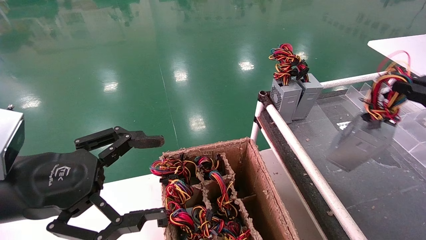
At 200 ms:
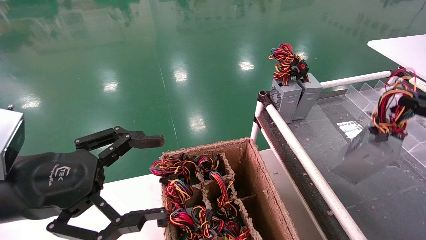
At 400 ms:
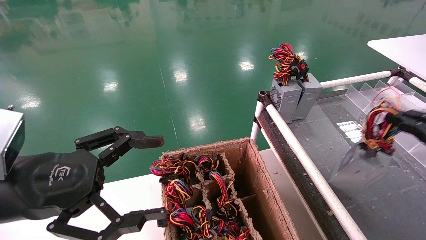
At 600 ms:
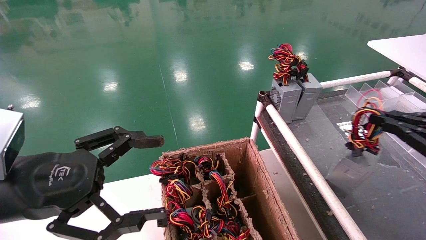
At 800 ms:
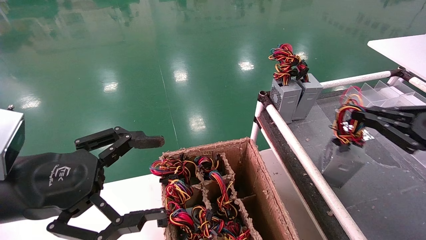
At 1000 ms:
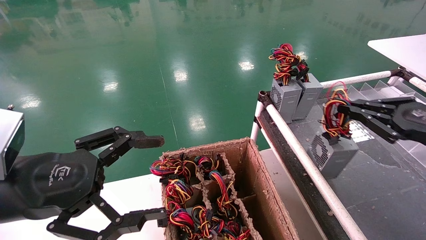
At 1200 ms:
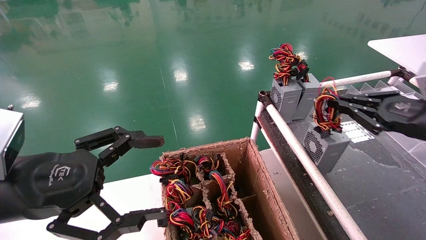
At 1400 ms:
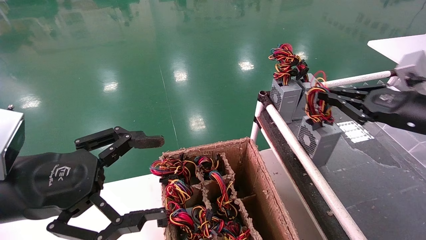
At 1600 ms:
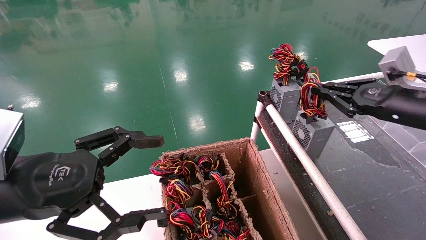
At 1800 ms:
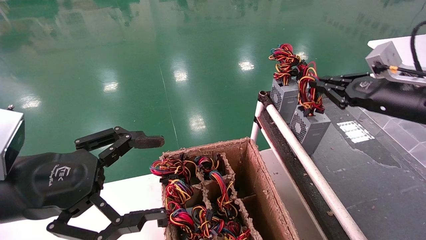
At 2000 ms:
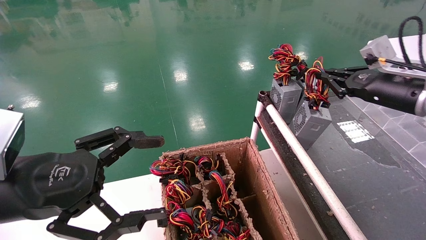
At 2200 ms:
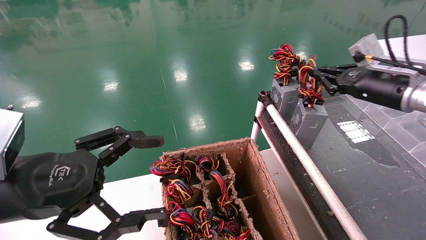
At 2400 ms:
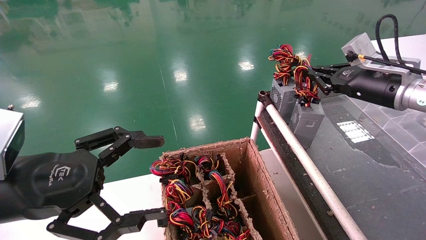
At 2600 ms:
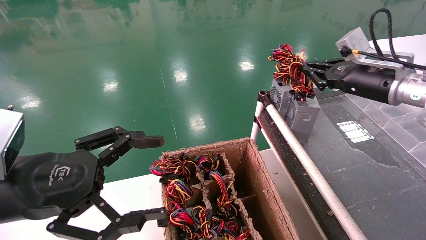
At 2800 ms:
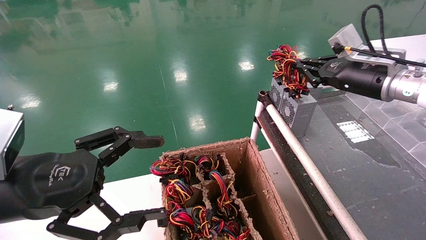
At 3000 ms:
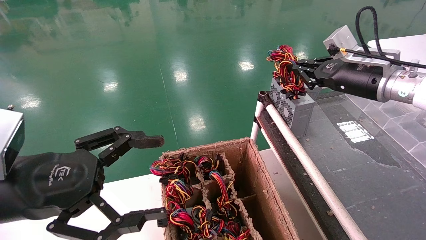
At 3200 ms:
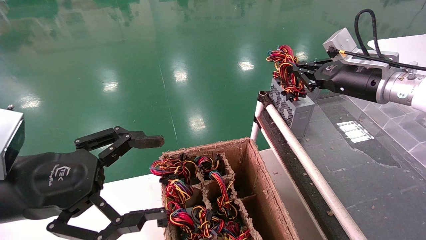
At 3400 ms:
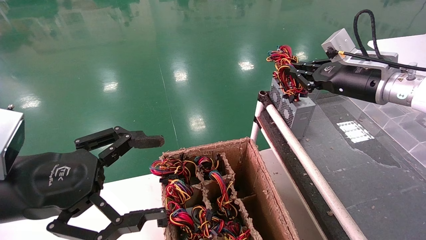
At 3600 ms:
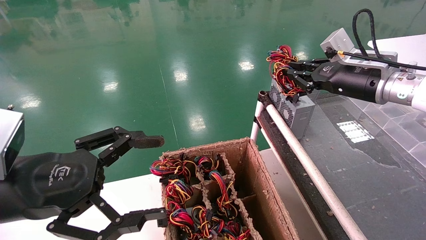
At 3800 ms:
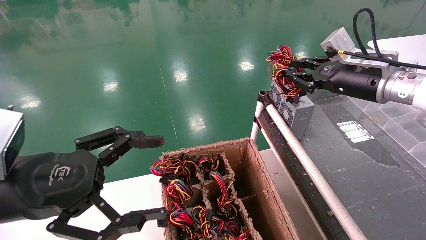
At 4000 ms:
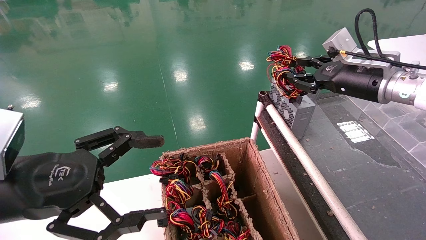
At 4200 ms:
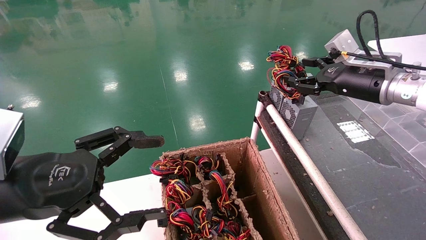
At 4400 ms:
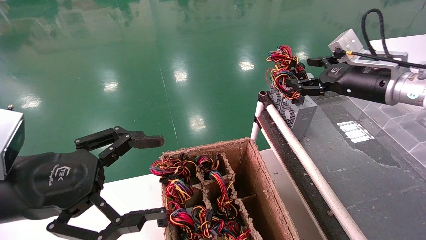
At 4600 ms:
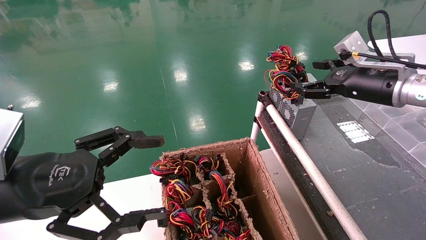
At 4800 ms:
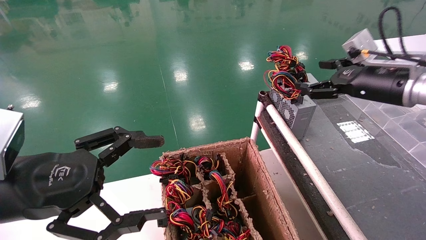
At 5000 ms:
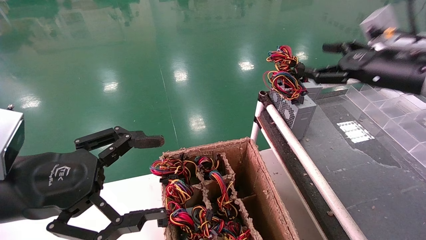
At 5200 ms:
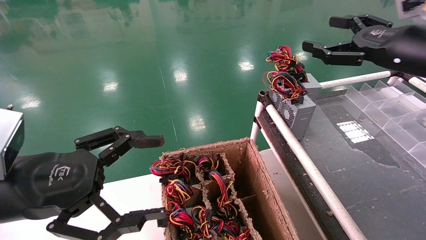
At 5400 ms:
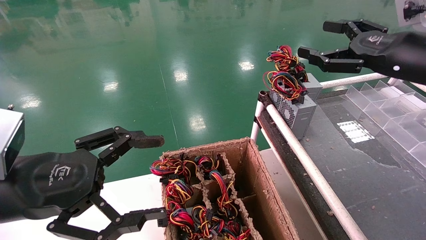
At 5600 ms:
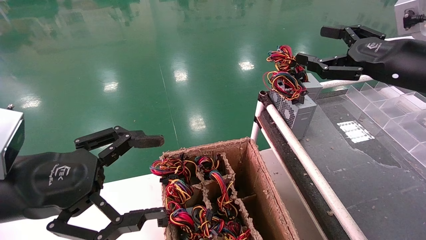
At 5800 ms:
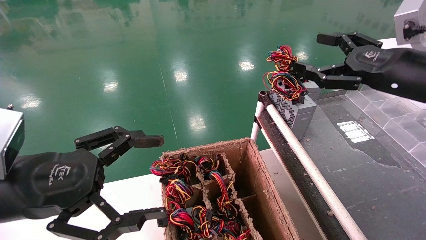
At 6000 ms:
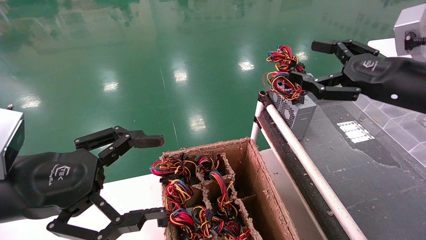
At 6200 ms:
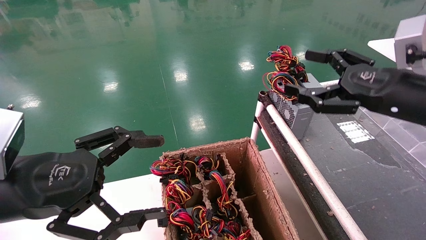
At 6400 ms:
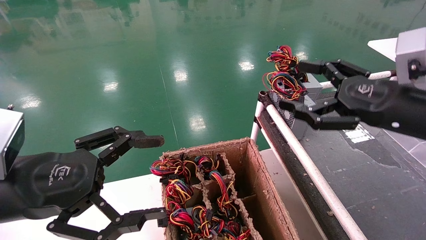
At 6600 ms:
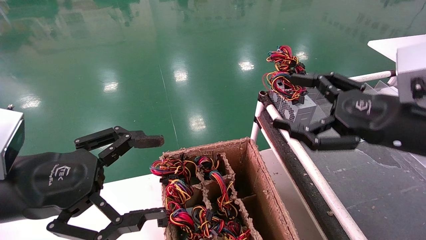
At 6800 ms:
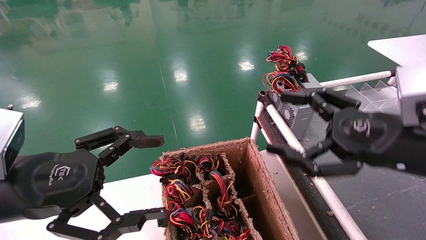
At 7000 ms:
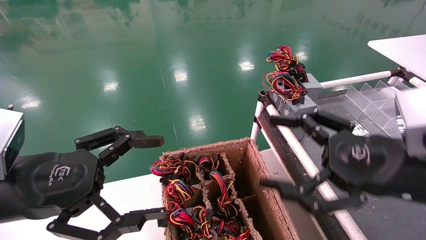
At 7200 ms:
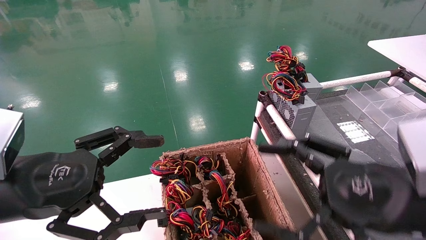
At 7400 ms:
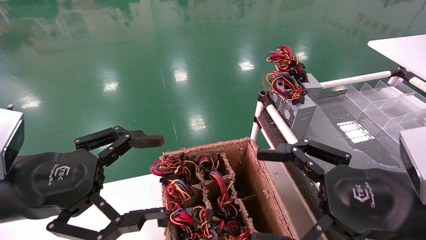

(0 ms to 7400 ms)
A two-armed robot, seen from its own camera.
Step, 0 ms - 3400 ms: Place the power supply on the operating table.
0 ms - 1400 ms: The right gripper shifts approximately 15 cm forward and to the left.
1400 ms - 3000 ms: The right gripper shifts approximately 10 cm forward and to the left.
3000 ms - 4400 ms: The right gripper opens up.
4400 ms - 6000 ms: The right gripper moves backward, some 10 cm.
6000 ms - 7400 ms: The right gripper goes approximately 15 cm backward, downward and to the left.

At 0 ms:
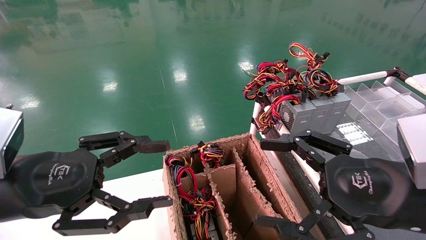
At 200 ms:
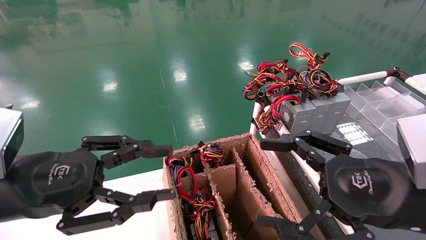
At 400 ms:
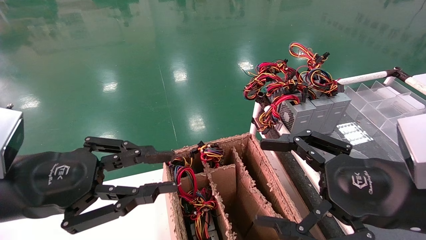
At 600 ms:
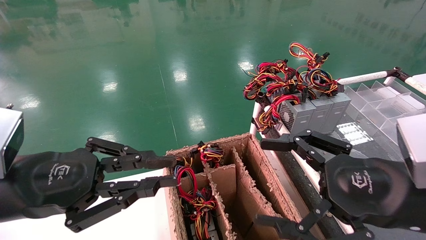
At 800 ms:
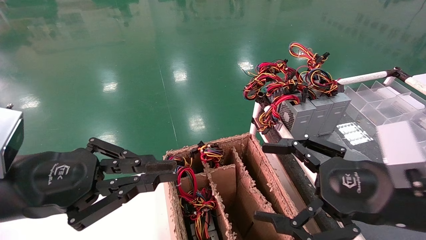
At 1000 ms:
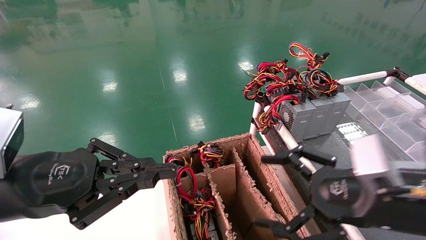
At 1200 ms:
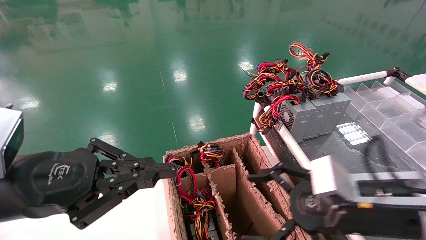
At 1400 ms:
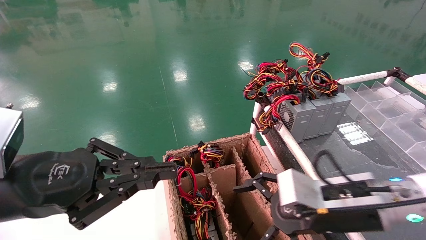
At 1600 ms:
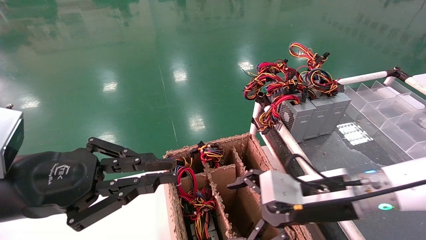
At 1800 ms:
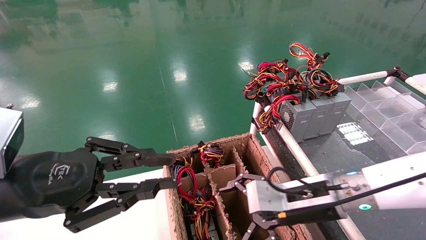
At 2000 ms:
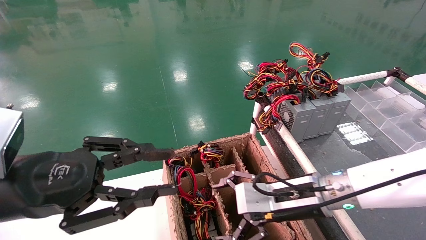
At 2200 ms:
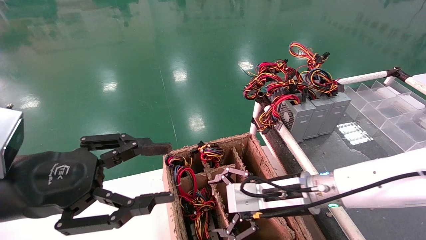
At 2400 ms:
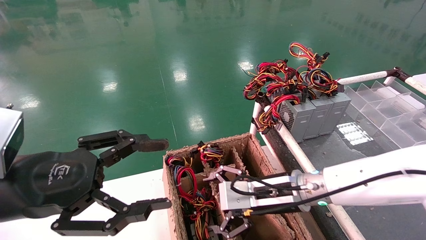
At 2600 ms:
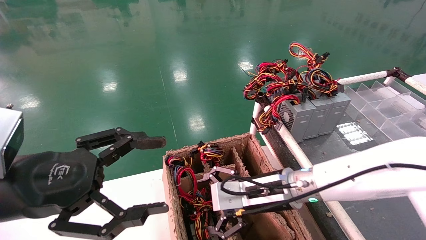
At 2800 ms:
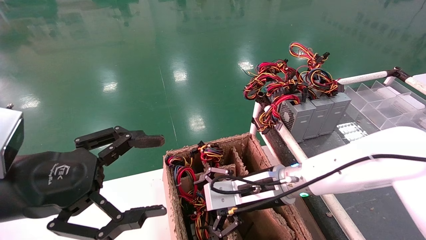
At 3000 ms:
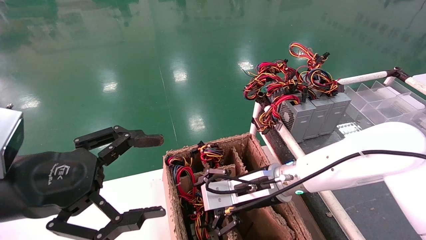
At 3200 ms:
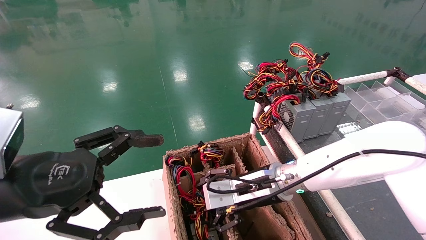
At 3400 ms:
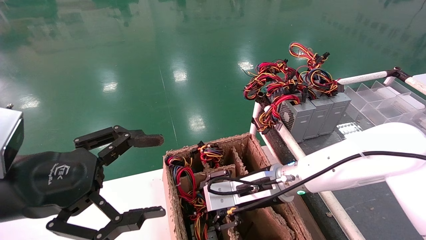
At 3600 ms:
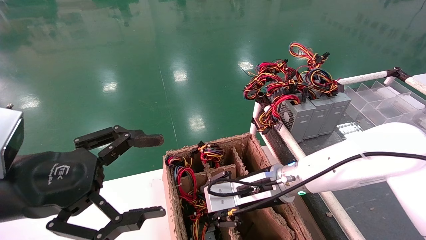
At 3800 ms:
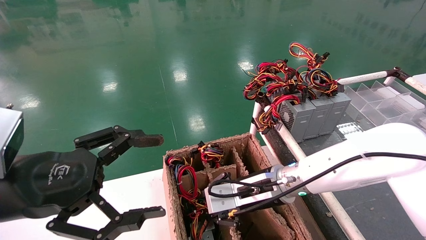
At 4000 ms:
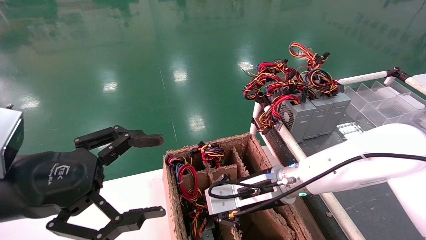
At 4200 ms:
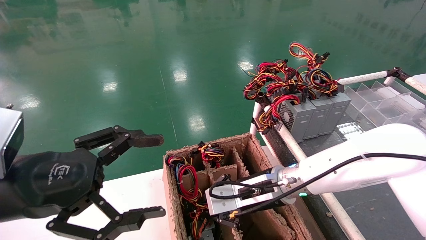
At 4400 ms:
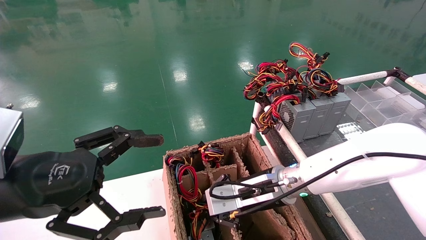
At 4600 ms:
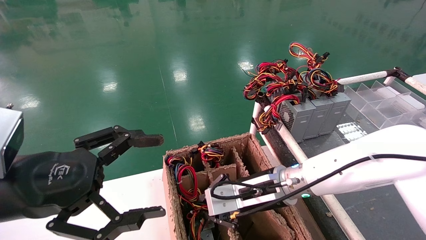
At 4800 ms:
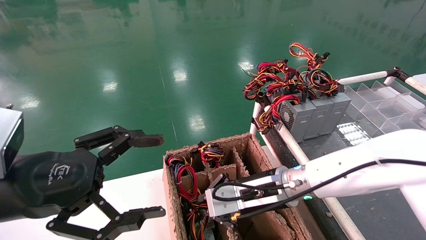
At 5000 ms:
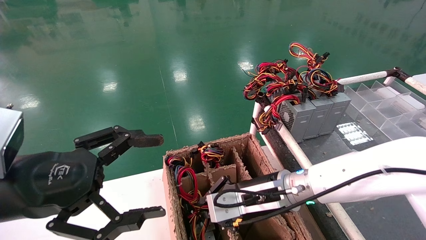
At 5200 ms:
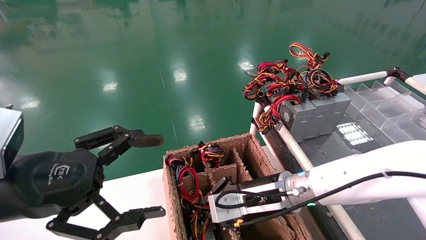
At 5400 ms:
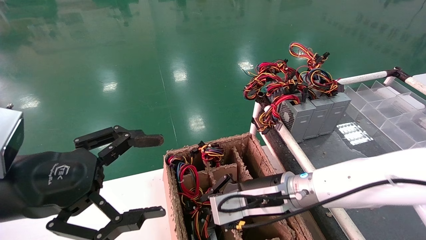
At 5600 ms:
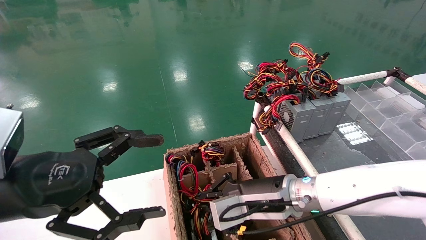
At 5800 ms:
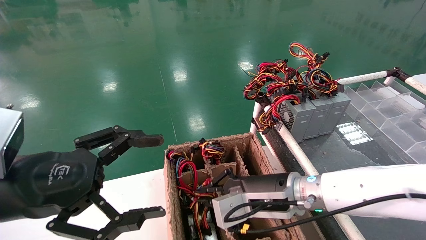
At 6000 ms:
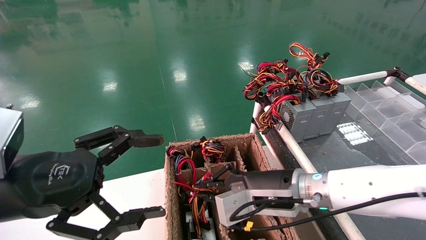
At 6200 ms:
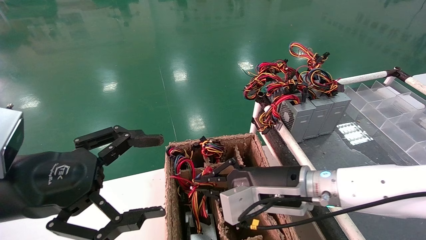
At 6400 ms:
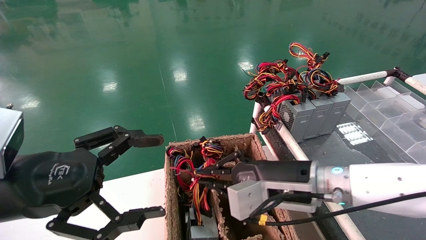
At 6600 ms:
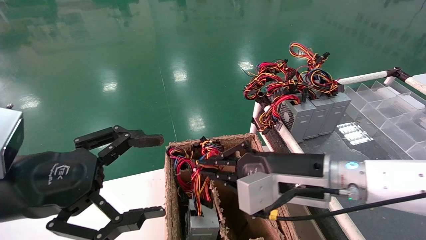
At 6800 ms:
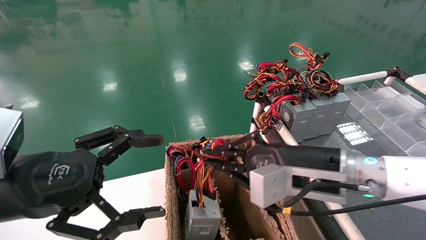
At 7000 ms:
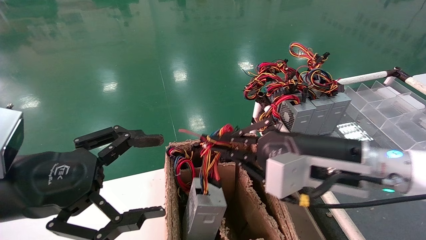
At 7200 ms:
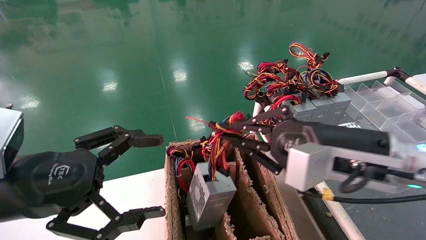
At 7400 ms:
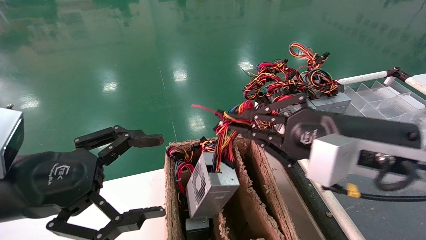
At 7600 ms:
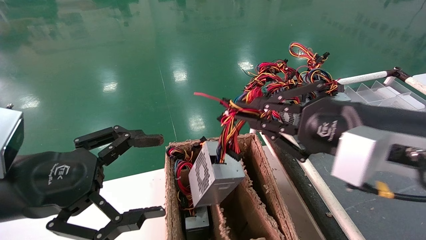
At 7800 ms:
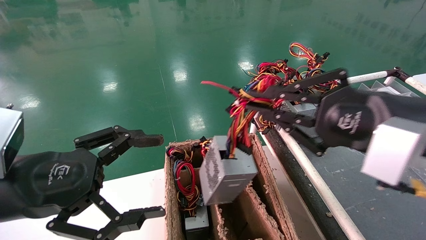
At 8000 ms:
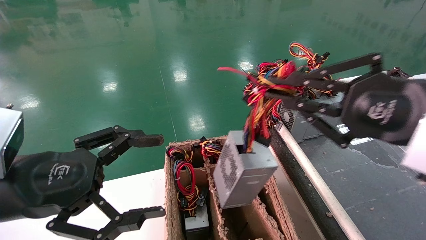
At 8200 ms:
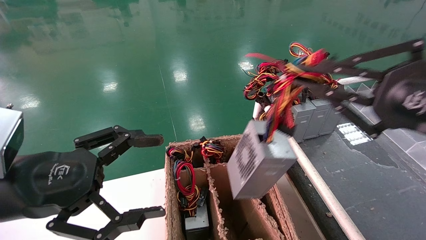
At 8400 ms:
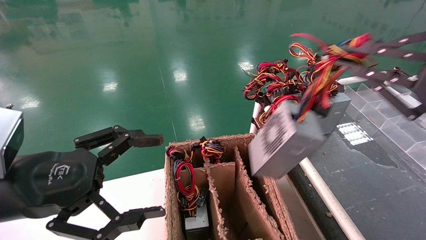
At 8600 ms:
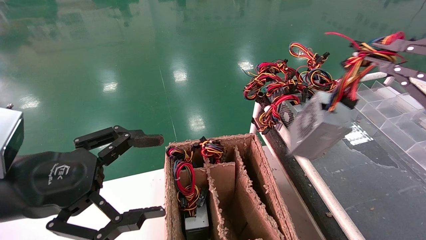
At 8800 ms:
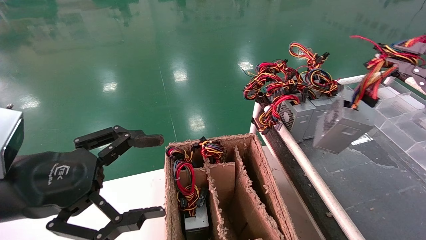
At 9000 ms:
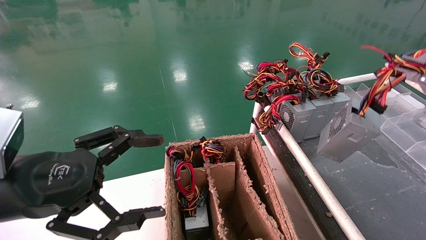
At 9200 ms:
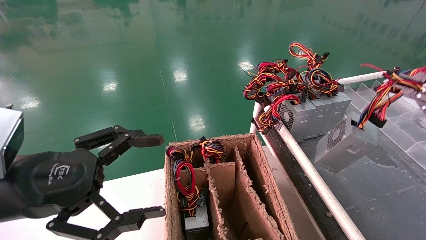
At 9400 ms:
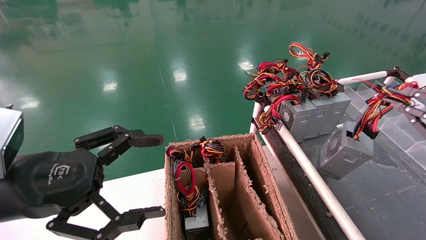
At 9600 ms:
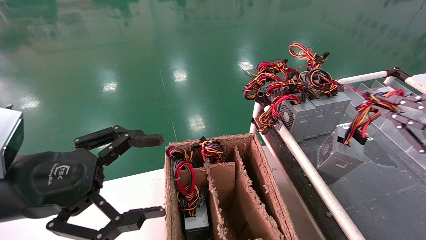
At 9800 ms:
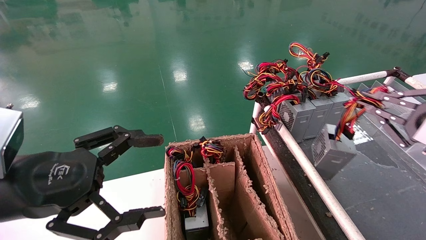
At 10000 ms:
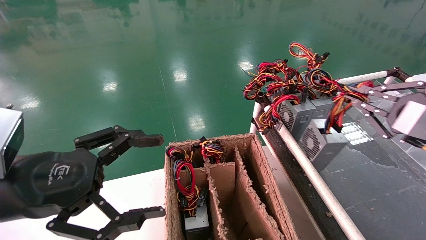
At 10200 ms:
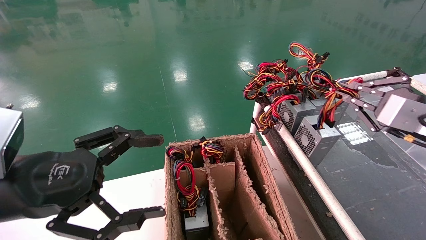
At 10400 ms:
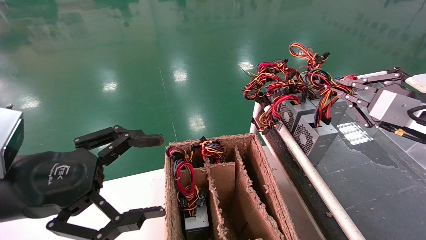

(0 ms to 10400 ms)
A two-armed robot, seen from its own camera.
Step, 1000 ms - 4200 ms: Grab and lift the power supply from the large box.
0 ms - 1400 ms: The right gripper travels forward and downward by some 10 cm; the left gripper closes.
1400 ms - 3000 ms: The left gripper opens its fingers, while the right gripper shifts roughly 15 cm to the left and forward.
3000 ms - 4400 ms: The right gripper closes.
6000 ms - 7400 ms: The right gripper heads upward, to the right and backward, covering approximately 15 cm.
7400 ms - 9000 ms: The right gripper is displaced to the right by about 20 cm.
9000 ms - 10400 ms: The right gripper shifts some 10 cm forward.
